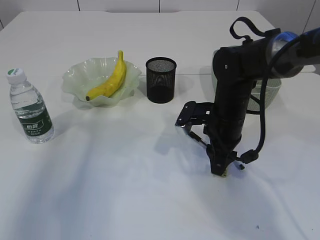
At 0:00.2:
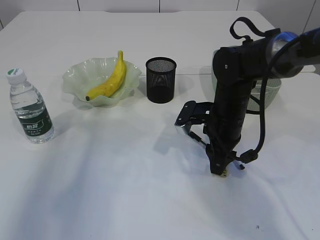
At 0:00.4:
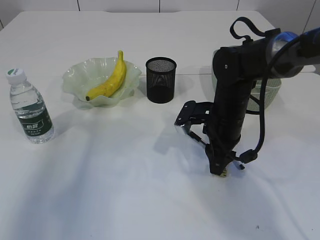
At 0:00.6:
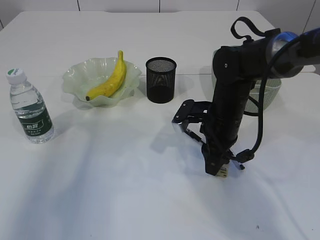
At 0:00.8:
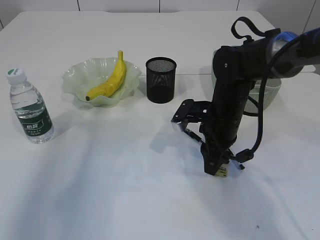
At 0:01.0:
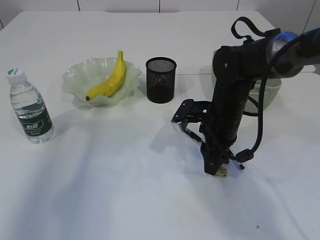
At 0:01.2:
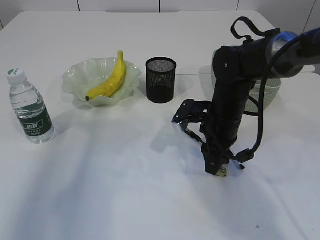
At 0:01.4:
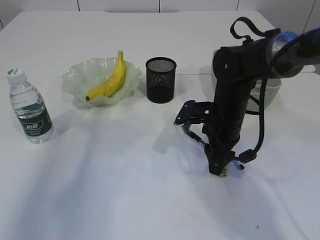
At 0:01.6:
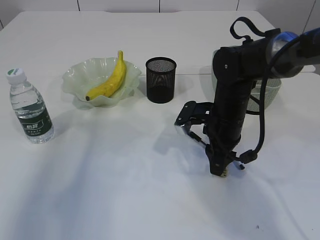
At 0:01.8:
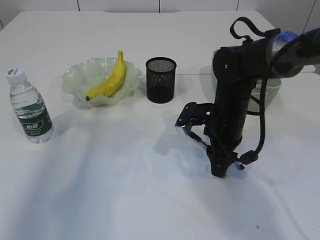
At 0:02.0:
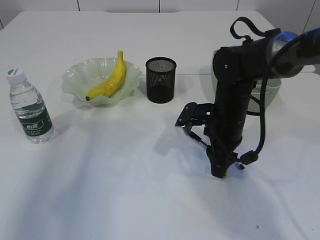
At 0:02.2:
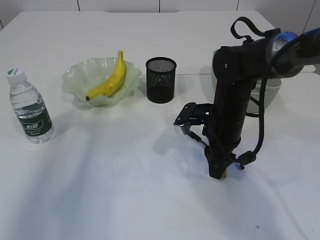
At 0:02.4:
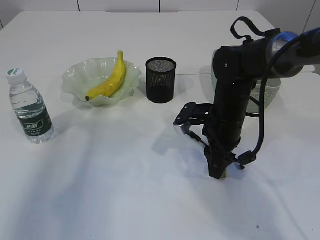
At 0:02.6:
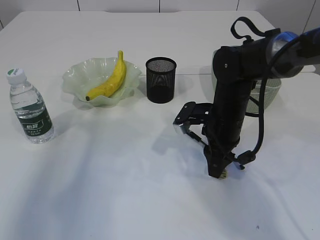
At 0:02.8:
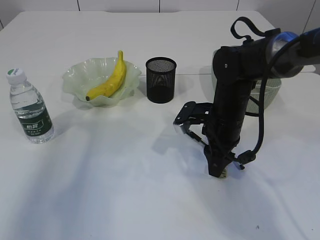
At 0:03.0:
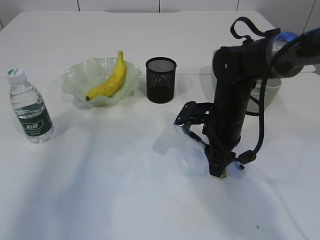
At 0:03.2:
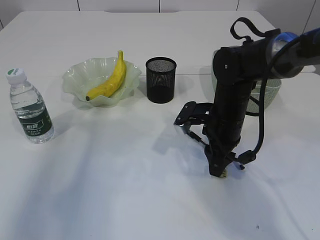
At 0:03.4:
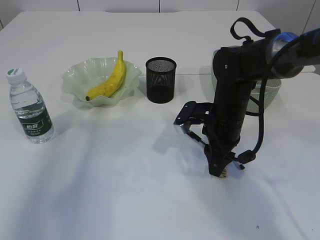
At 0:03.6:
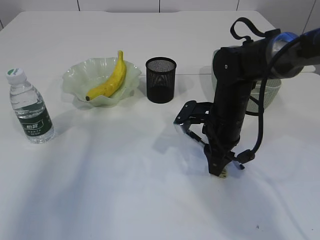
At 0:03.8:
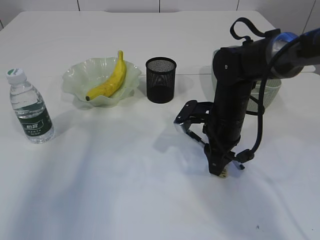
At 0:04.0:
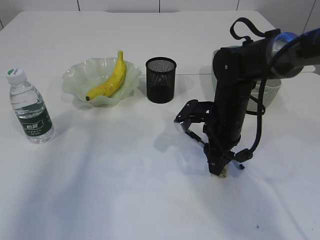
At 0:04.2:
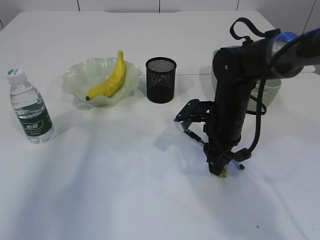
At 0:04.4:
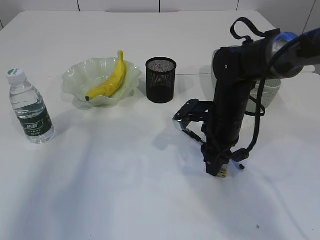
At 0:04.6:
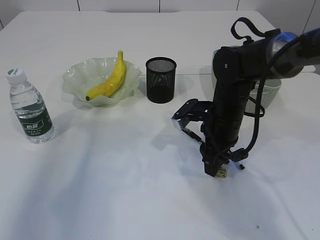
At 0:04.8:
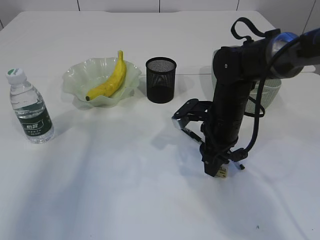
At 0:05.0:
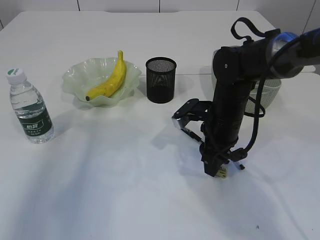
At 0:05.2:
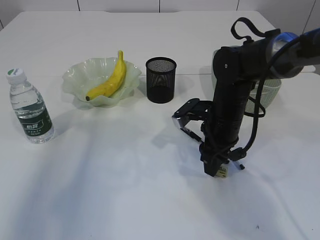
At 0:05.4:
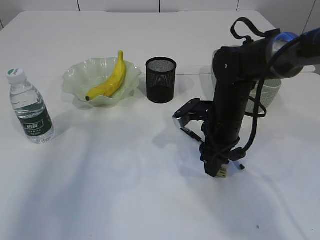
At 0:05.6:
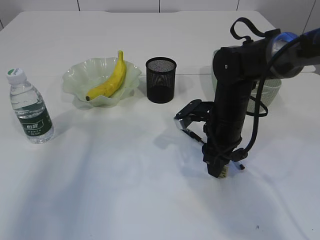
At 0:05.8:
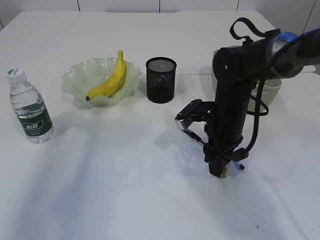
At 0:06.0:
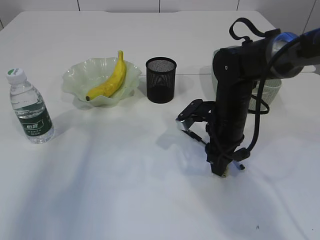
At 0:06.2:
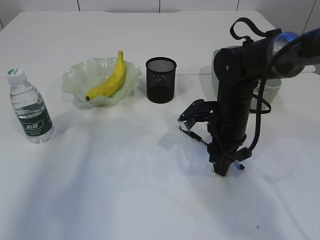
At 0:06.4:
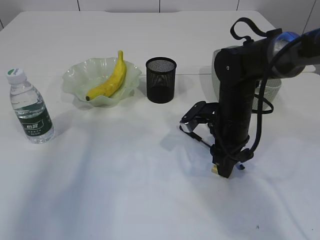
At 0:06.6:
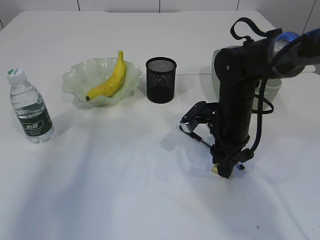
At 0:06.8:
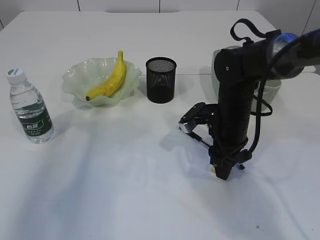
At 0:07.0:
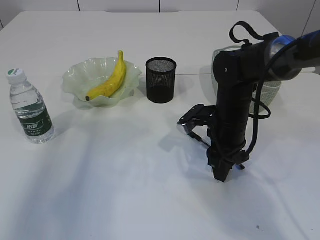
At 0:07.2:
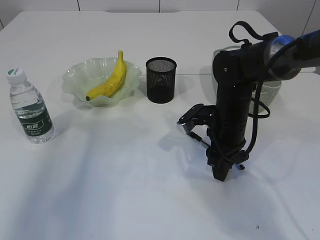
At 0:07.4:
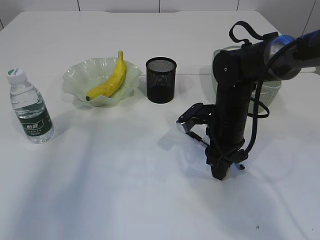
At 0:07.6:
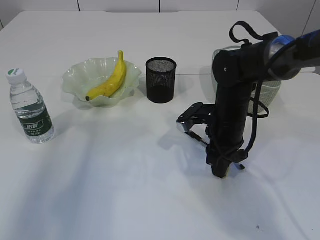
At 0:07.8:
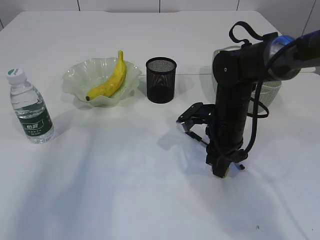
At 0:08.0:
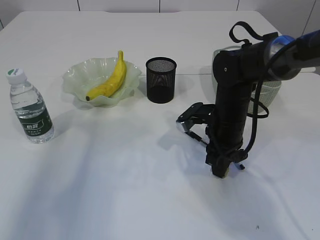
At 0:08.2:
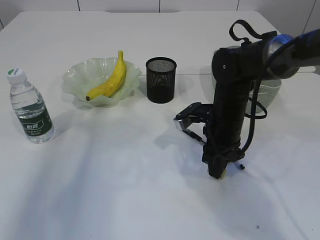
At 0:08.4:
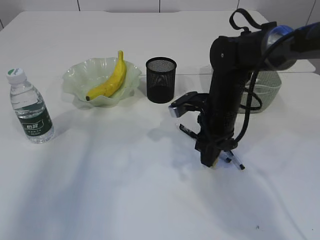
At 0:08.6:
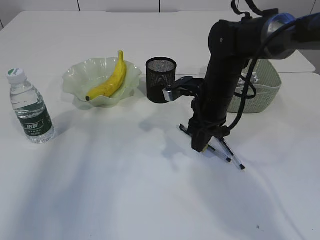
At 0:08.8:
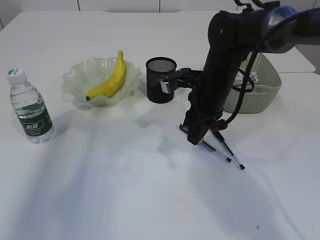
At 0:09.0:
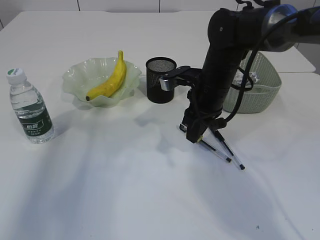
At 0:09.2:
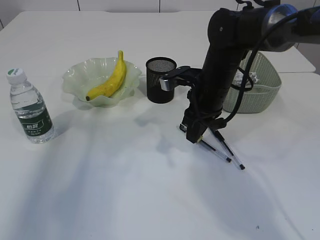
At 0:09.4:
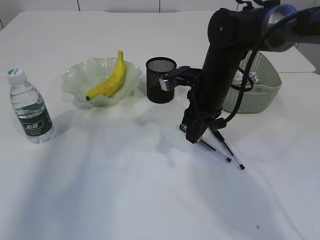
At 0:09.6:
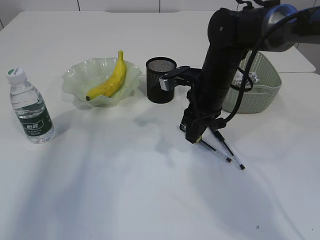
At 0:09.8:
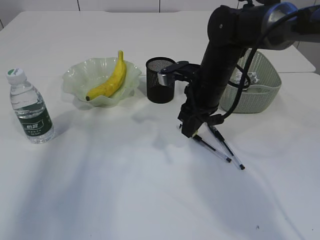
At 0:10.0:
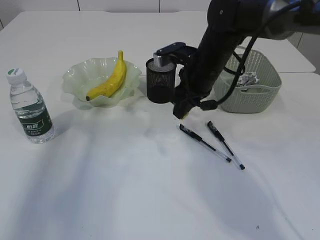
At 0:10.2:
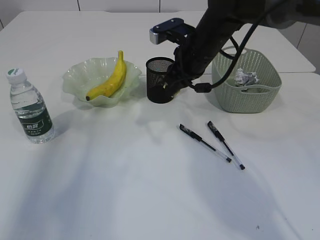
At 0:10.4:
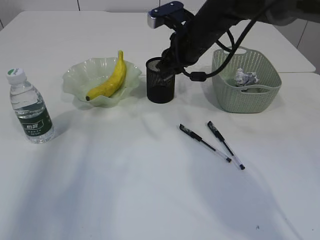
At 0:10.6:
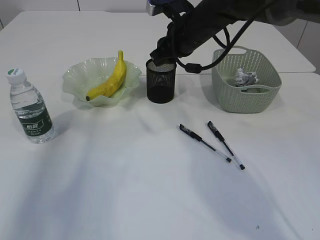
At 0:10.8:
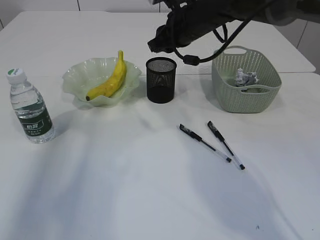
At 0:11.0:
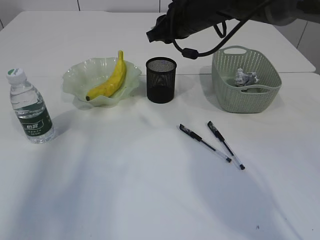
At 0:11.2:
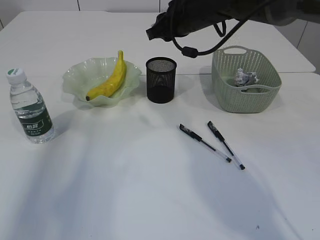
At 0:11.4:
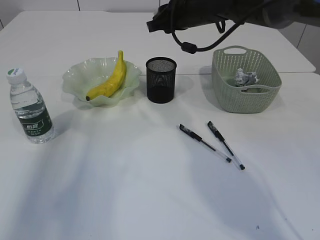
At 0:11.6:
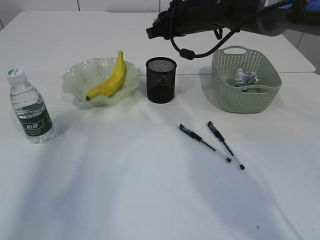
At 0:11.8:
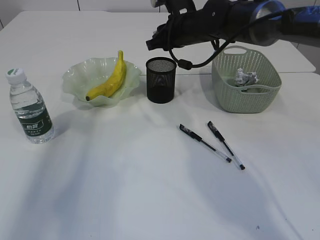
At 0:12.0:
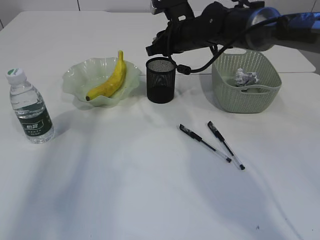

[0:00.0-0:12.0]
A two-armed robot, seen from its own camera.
Step, 0:00.0 to 0:08.6: Pick up the eraser.
0:00.0 to 0:03.0: The two grippers keep their place.
0:03.0 to 0:06.0: There are only small adjustments of the grippers.
0:06.0 to 0:07.6: Both grippers stay put.
0:07.6 to 0:09.0: The right gripper heads upward, covering roughly 5 cm.
0:09.0 to 0:10.4: The right gripper heads upward, covering roughly 5 cm.
0:10.4 to 0:12.0: The right gripper travels forward by some 5 cm.

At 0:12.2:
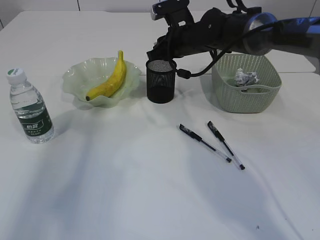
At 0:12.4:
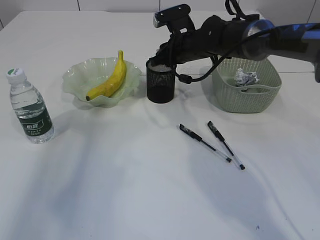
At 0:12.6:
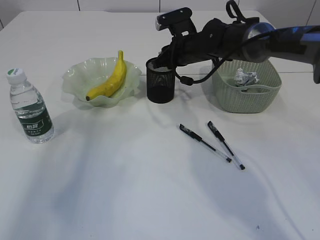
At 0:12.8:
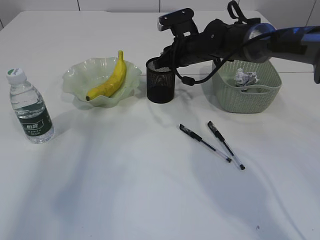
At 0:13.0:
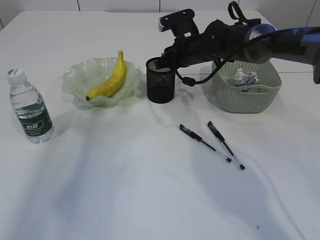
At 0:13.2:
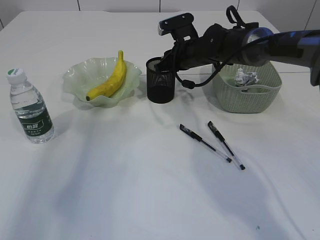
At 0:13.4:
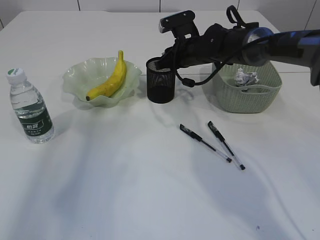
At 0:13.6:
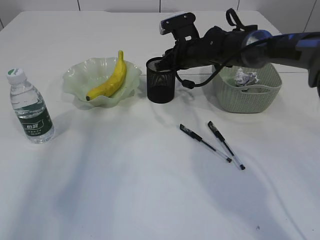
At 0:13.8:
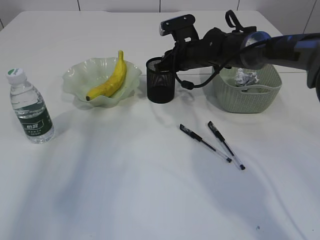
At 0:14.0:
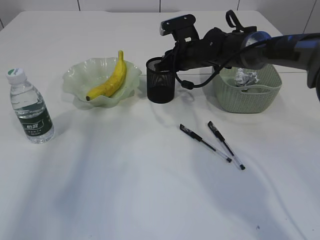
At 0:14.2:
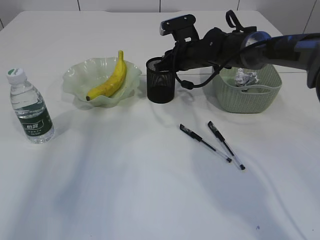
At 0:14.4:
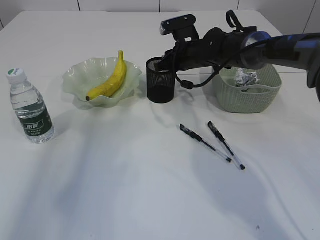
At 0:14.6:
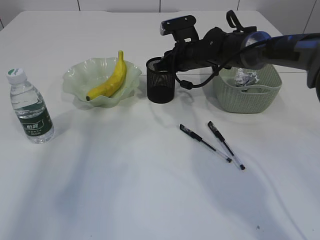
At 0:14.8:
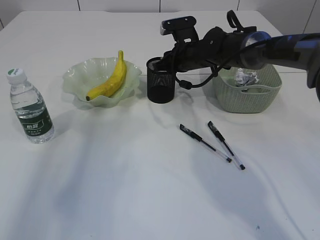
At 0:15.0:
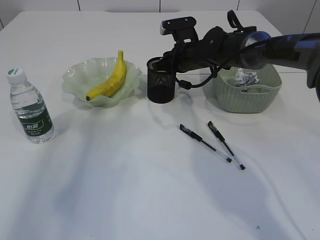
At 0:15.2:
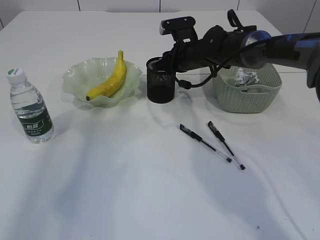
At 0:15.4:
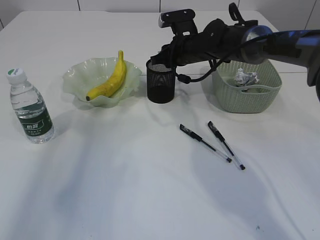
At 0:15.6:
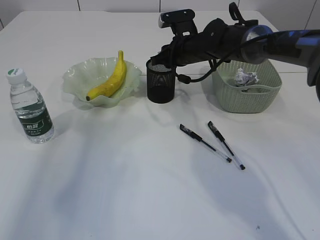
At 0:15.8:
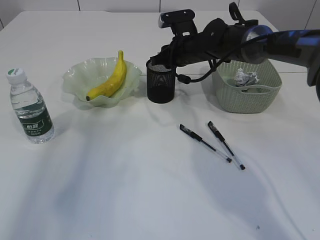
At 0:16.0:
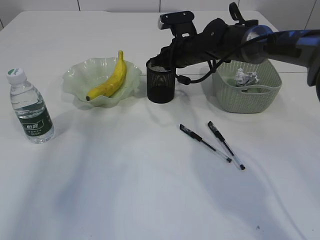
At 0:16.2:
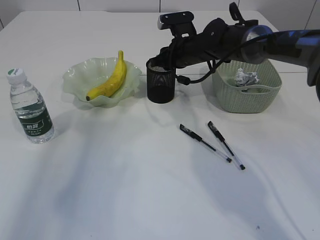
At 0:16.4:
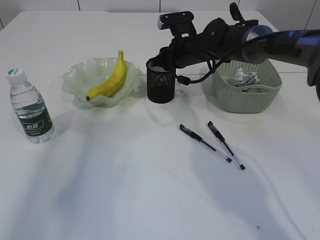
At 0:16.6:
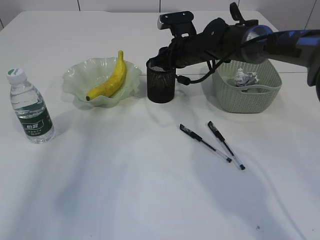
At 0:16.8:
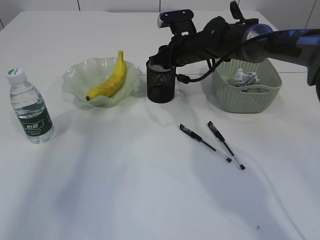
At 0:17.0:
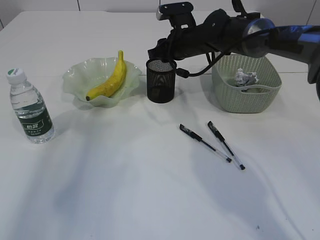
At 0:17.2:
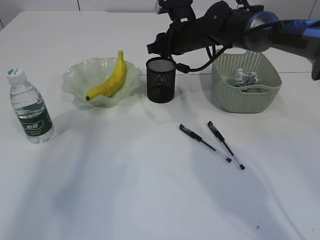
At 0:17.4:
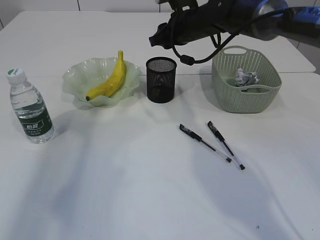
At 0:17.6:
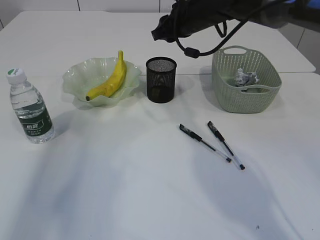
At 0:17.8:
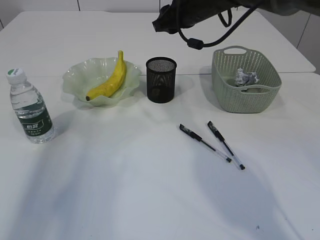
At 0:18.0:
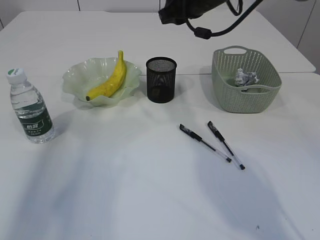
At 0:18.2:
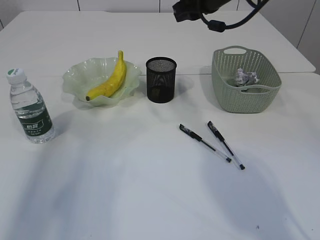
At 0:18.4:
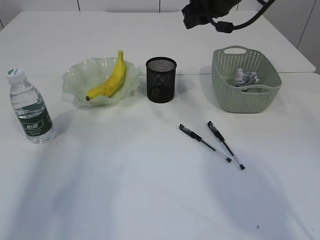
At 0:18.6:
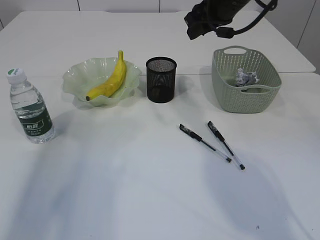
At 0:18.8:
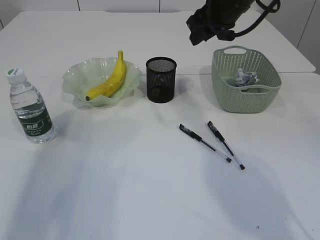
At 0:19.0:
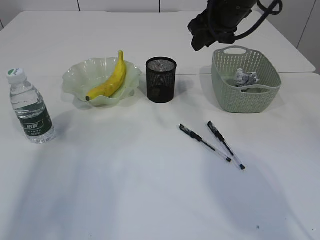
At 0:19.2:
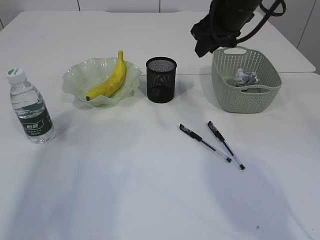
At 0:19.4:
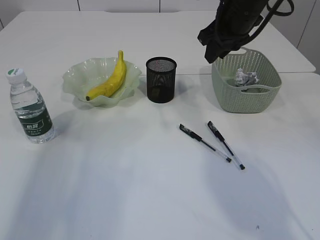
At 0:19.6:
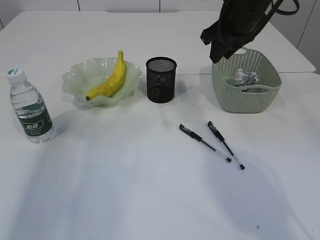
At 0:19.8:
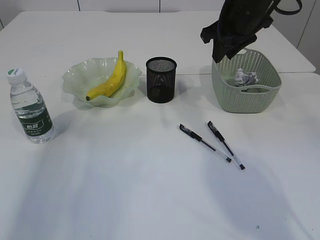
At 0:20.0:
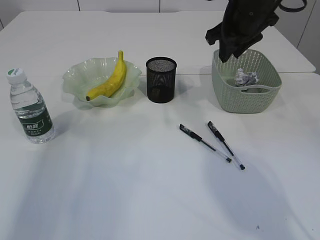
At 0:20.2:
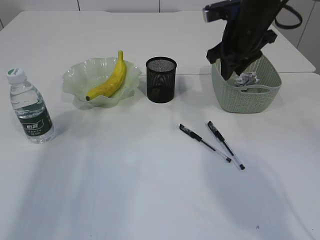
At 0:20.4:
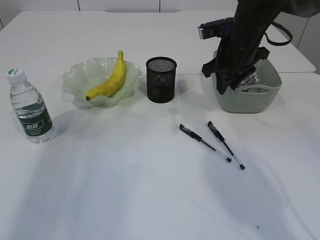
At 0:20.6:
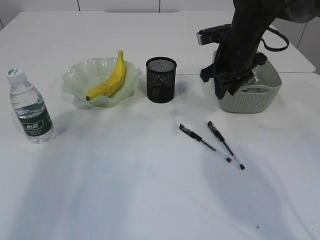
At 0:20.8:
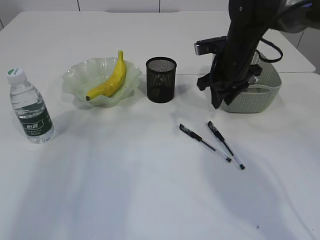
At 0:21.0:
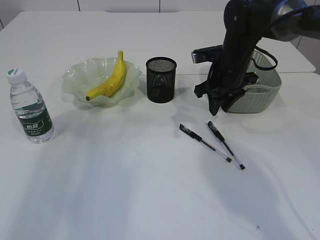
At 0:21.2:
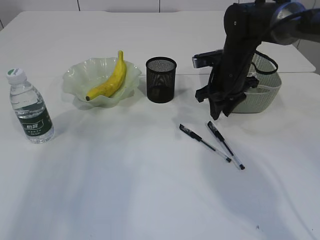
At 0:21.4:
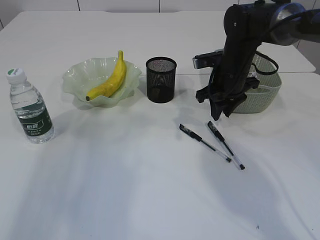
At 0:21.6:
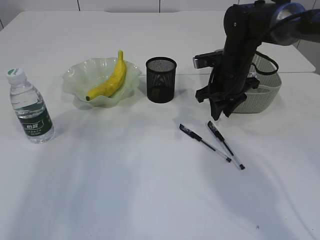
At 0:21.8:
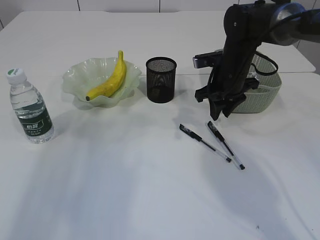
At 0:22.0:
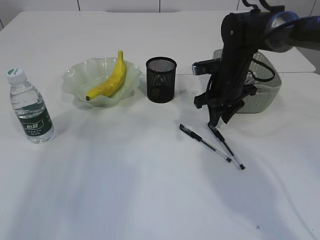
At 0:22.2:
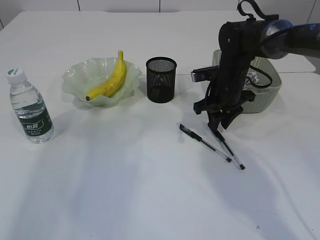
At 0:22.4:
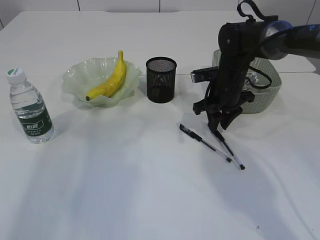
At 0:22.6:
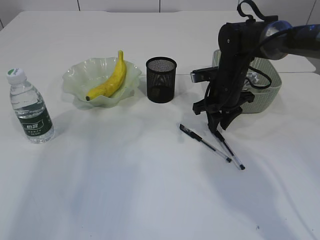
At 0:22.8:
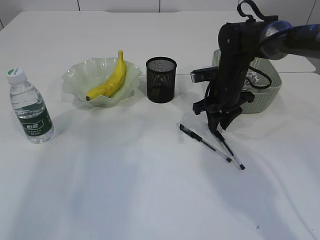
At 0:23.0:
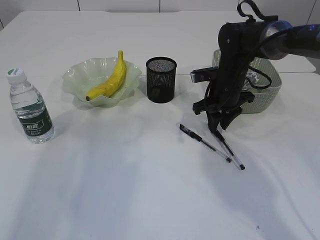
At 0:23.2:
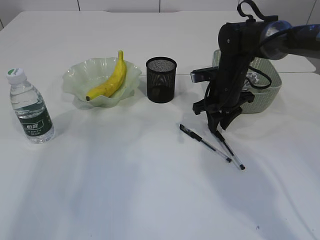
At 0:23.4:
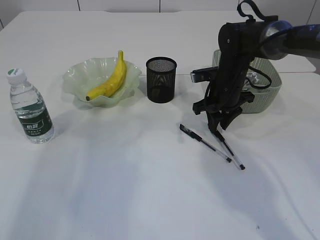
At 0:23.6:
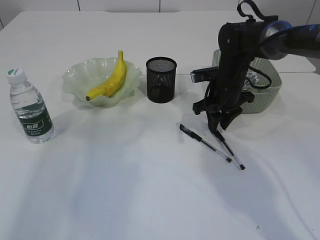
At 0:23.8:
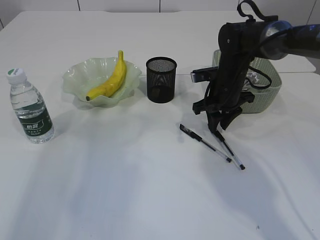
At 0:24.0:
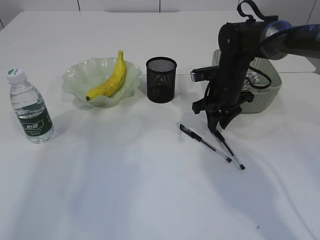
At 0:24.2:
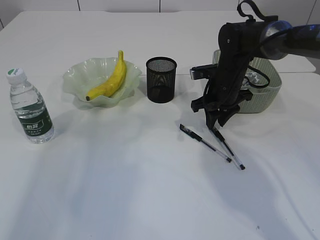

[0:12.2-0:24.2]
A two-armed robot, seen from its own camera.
Step, 0:12.2 to 0:17.2: Place the eraser into the pen holder.
0:12.2 to 0:15.2: The grippers move only a little.
0:15.2 to 0:16.6: Both grippers stay put.
0:16.6 to 0:18.2: The right gripper heads upward, covering some 15 cm.
0:18.2 to 0:19.8: The right gripper shifts by some 5 cm. The left gripper changes place by some 5 cm.
0:19.8 to 0:21.2: The right gripper travels downward by about 10 cm.
0:21.2 to 0:22.6: The grippers make only small movements.
0:22.6 to 0:24.2: Neither gripper changes place.
